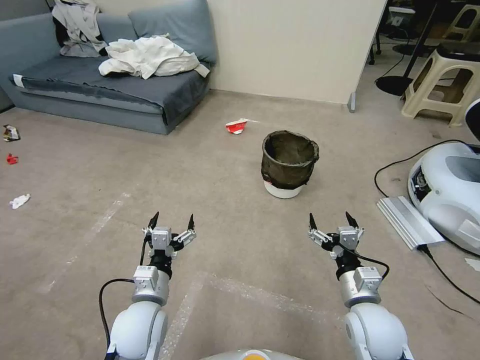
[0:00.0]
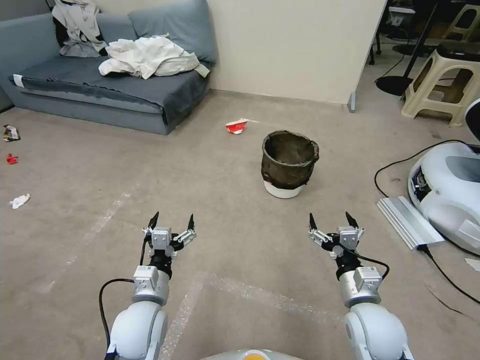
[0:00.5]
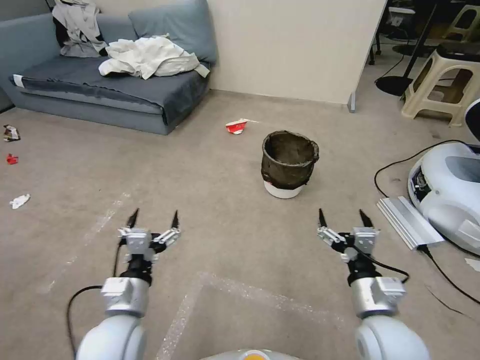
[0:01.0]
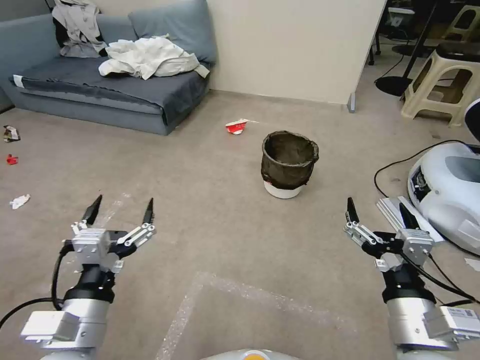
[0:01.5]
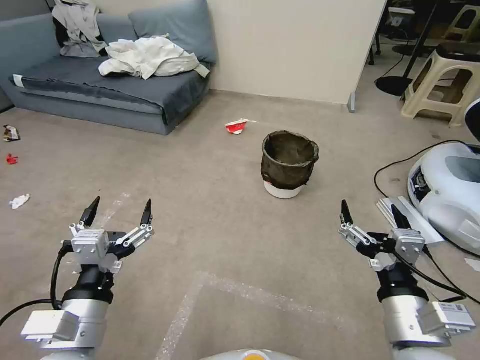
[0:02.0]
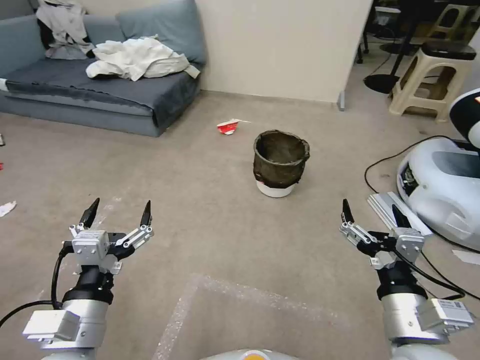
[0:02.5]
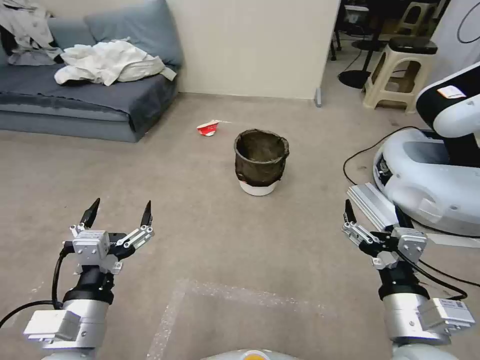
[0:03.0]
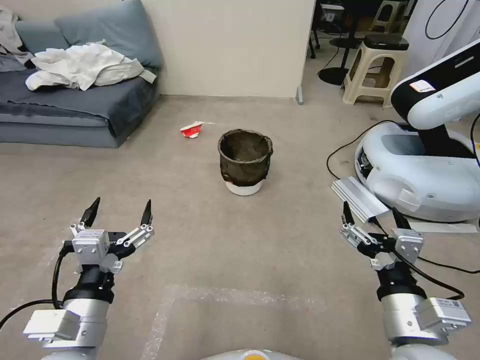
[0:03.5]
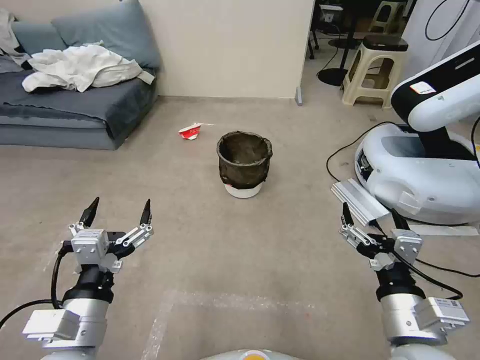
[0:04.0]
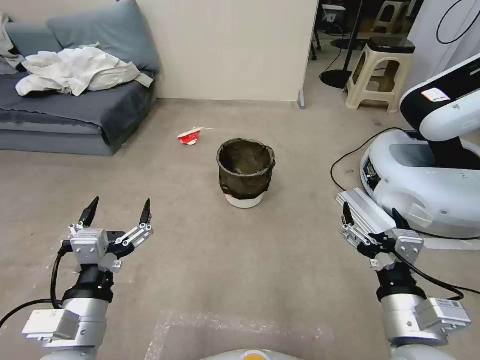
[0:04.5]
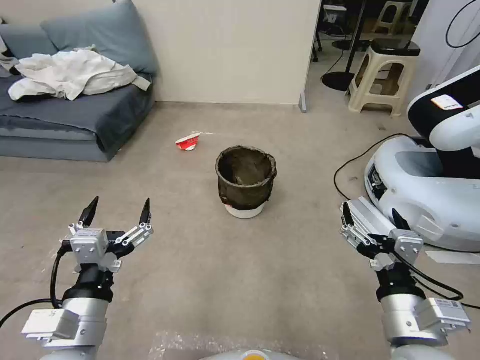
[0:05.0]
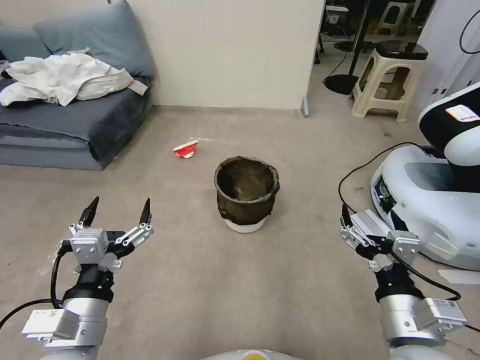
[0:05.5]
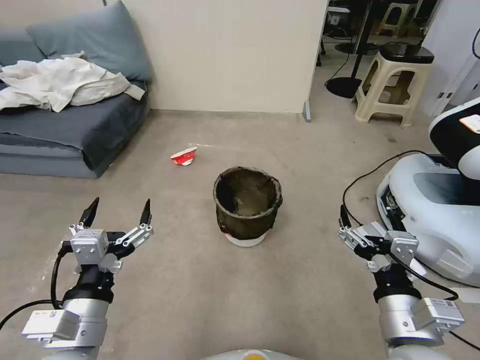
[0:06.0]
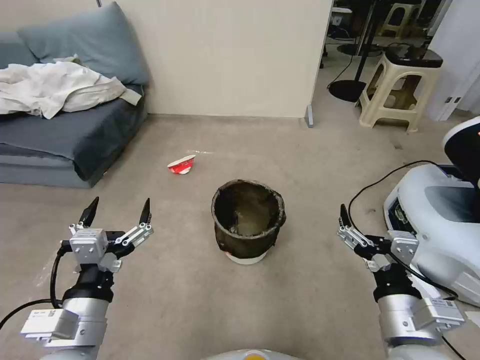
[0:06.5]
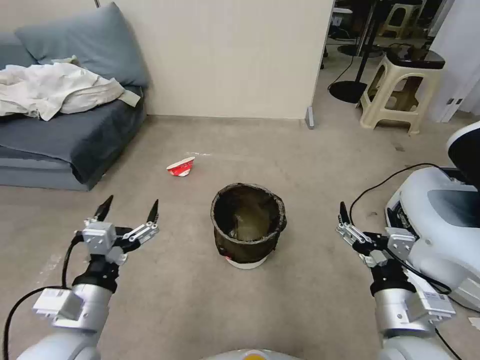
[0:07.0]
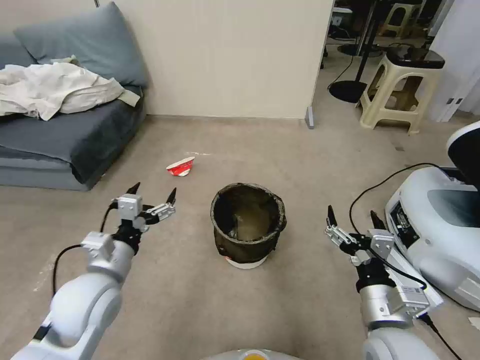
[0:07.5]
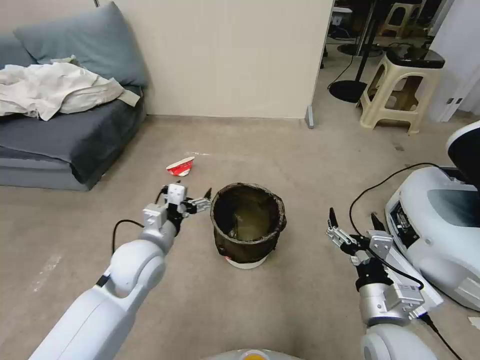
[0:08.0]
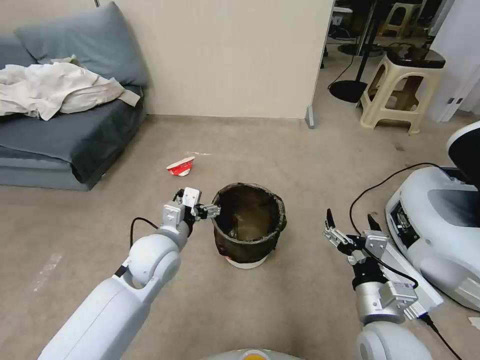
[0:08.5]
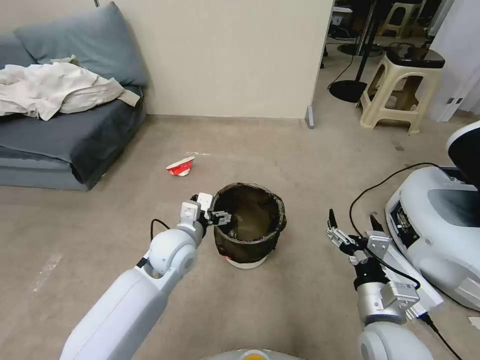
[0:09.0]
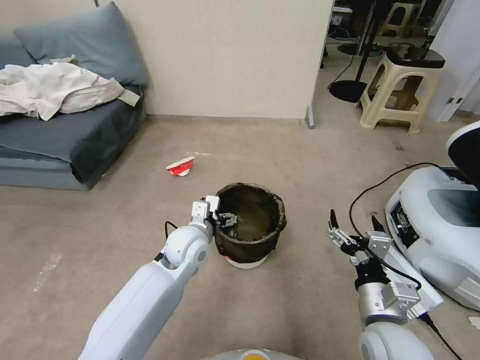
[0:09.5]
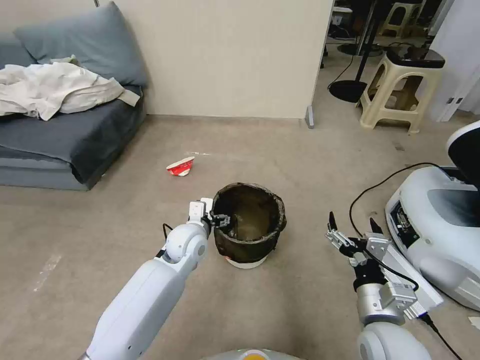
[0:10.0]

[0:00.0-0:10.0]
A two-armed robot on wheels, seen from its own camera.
Task of the whole recording: Pick up the trash can from the floor.
0:06.0 to 0:08.0: The left gripper goes approximately 20 cm forward, while the right gripper goes approximately 5 cm downward.
0:08.0 to 0:10.0: The left gripper heads forward, to the right and downward, covering approximately 15 cm.

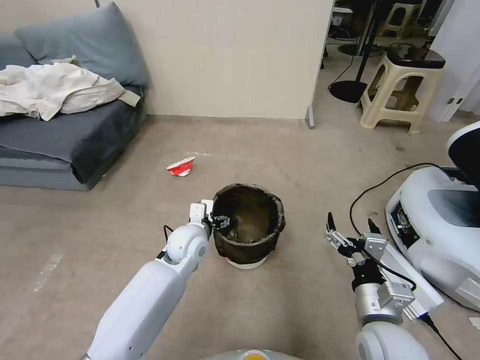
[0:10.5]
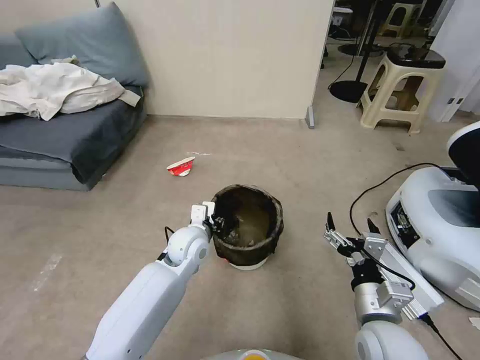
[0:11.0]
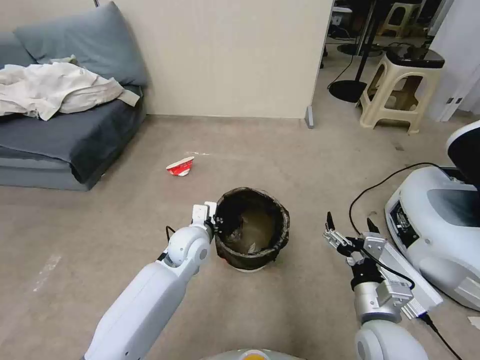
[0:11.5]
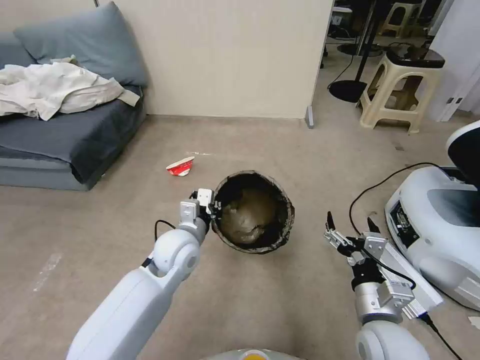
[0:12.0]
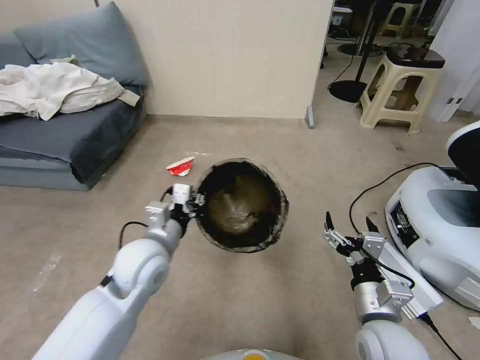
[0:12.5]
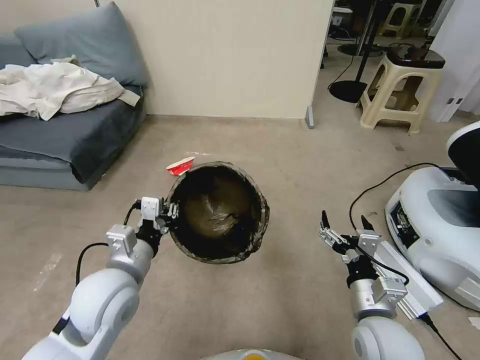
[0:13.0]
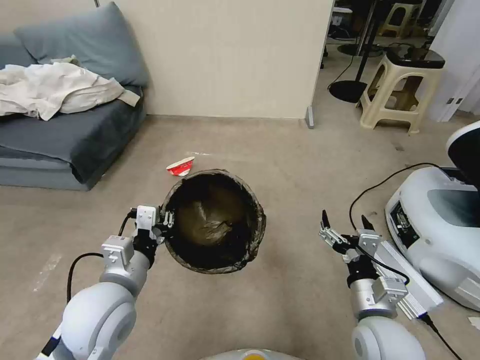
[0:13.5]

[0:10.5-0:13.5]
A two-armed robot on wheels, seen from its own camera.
Task of the whole recording: Pick up the trash can from the floor.
0:10.5 to 0:12.0: The left gripper travels upward by about 5 cm, and closes.
0:12.0 to 0:13.5: The left gripper moves backward, to the left and upward, about 15 cm.

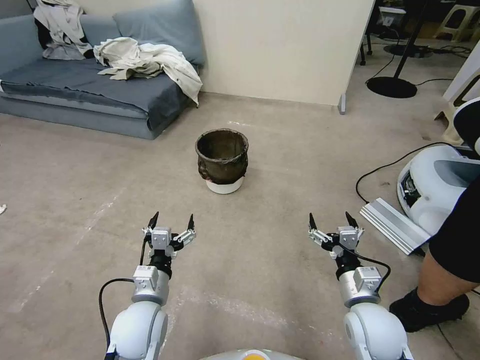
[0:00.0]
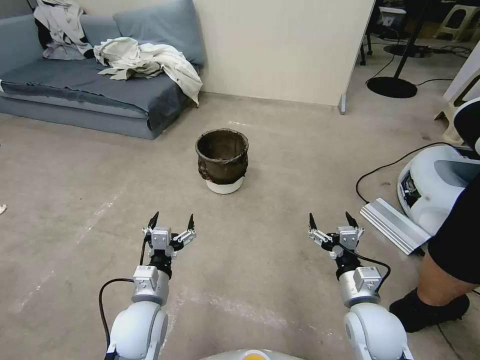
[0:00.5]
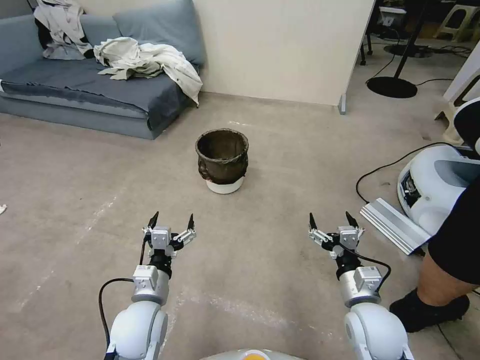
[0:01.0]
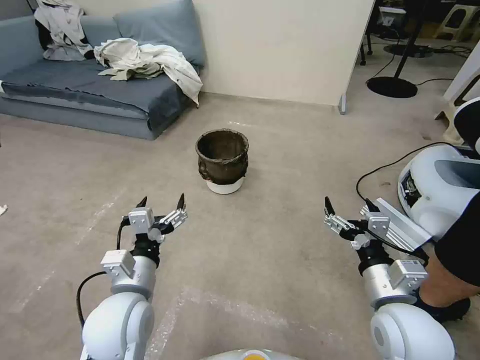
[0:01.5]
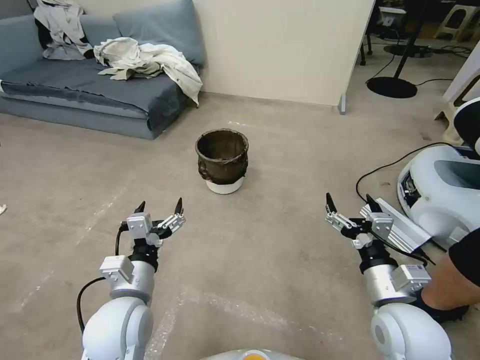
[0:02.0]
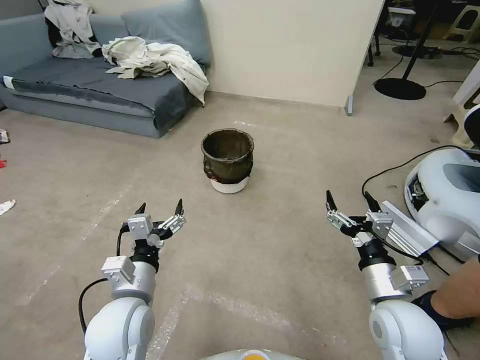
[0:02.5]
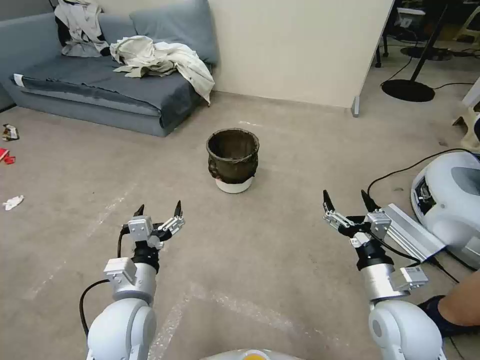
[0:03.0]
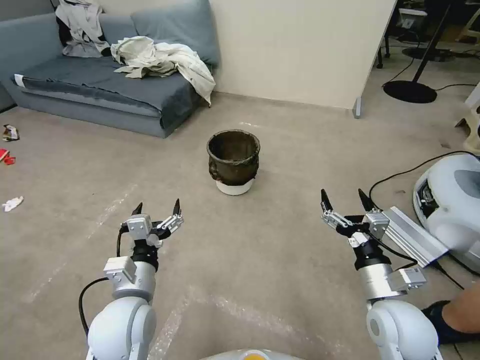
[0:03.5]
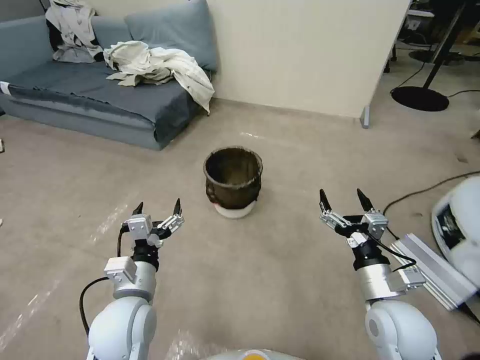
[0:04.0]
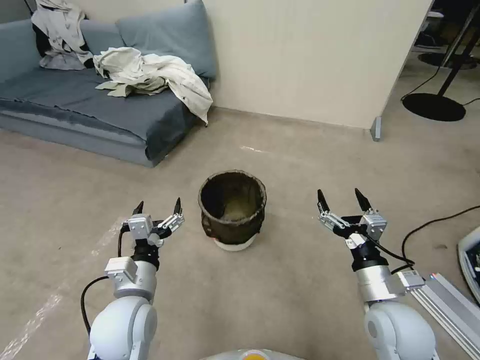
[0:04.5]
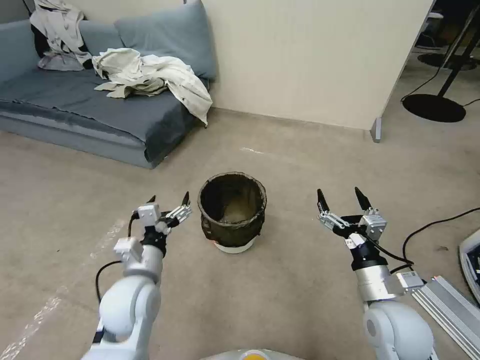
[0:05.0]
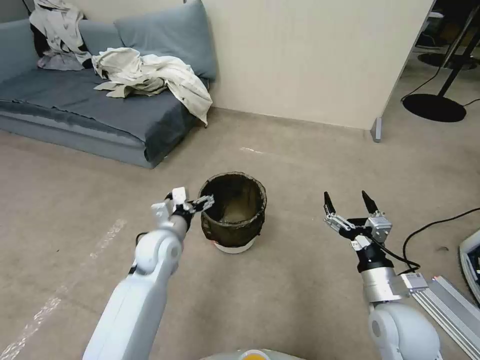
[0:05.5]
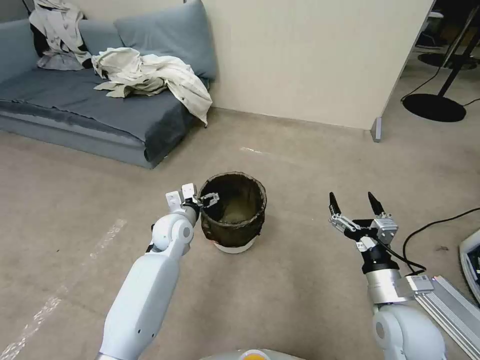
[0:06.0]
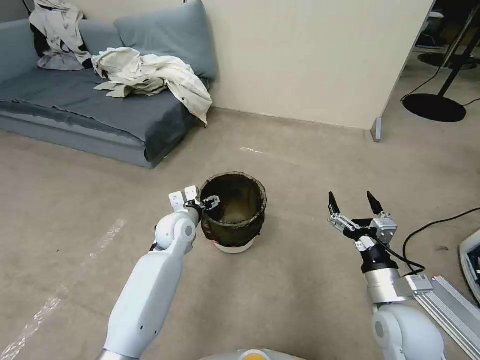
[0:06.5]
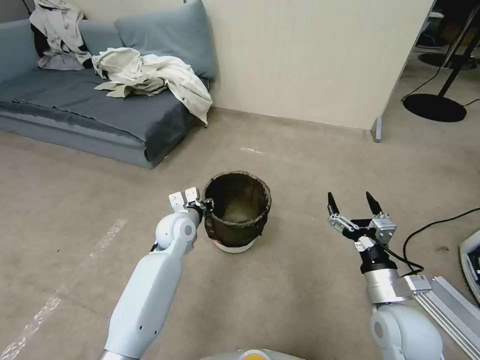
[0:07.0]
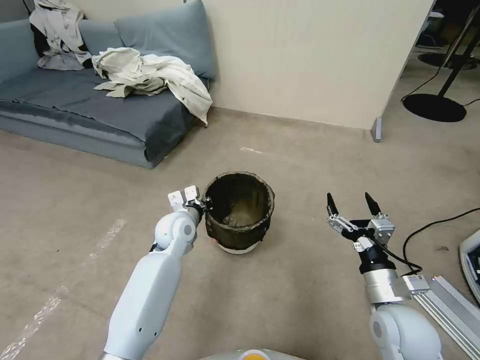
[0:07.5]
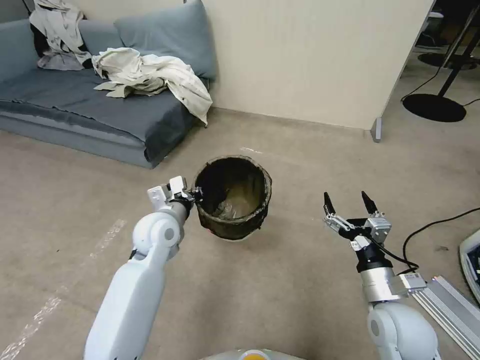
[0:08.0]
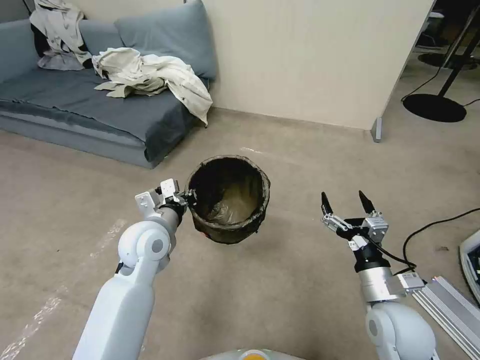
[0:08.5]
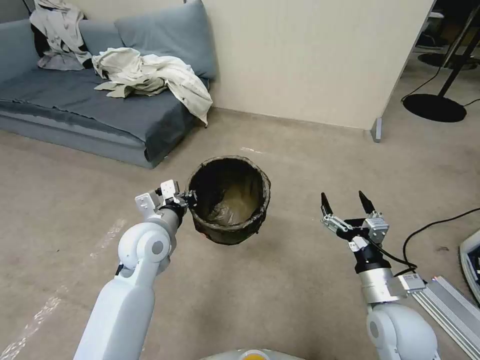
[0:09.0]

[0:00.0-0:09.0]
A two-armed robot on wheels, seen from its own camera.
Task of the whole recording: Pick up the trash can from the floor.
0:04.5 to 0:07.0: The left gripper goes roughly 20 cm forward, and closes.
0:07.0 to 0:09.0: The left gripper shifts some 10 cm upward and backward.

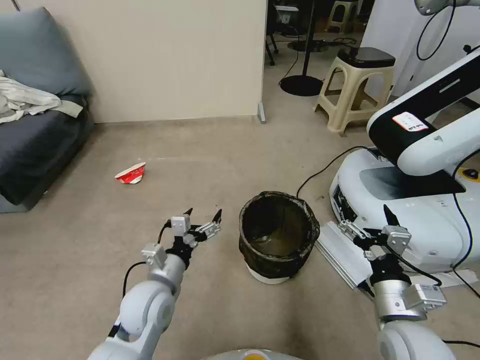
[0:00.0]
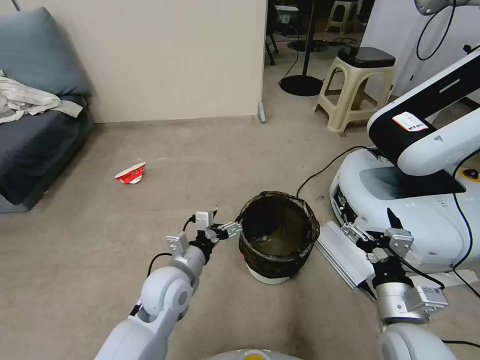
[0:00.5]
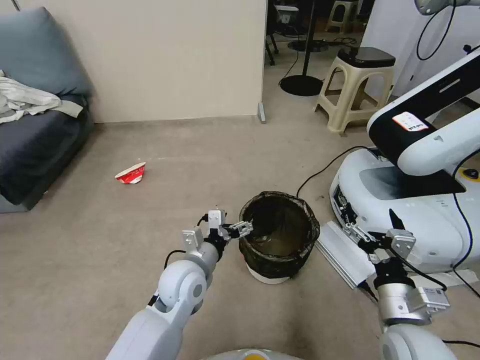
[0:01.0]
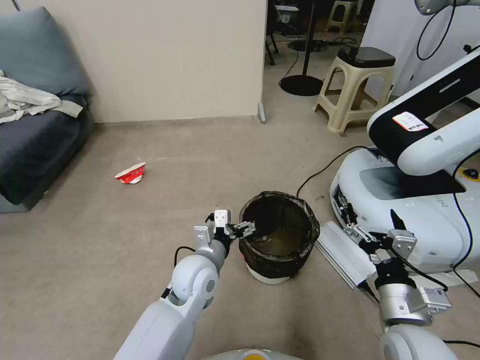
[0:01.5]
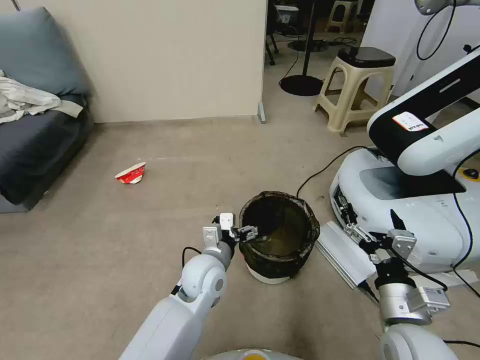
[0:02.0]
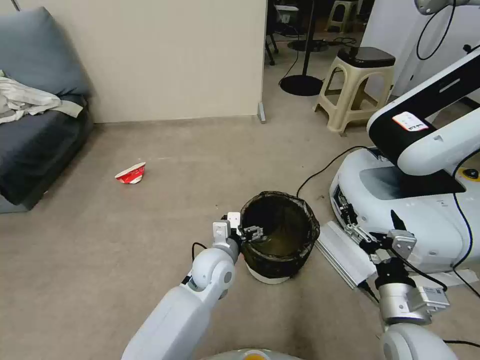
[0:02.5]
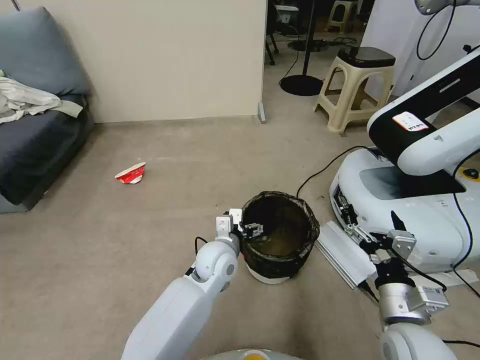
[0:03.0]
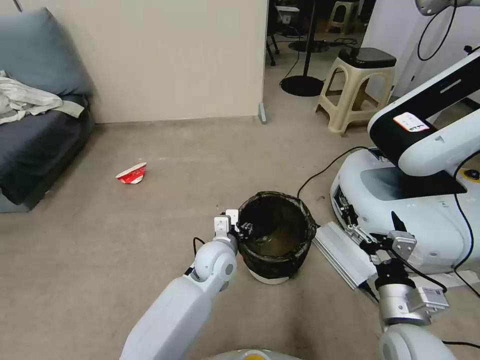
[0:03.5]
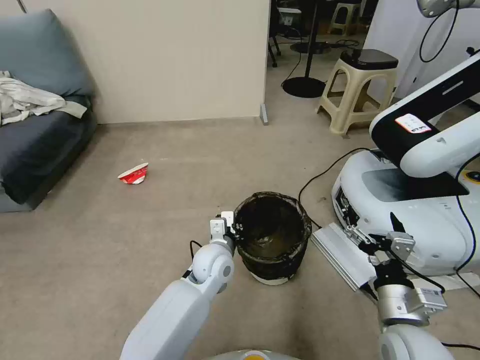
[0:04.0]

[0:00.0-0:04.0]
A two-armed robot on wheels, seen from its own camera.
Task of the whole recording: Pick up the trash can from the floor.
0:00.0 to 0:02.0: The left gripper is displaced to the right and forward by roughly 10 cm.
0:02.0 to 0:04.0: The left gripper closes up.
